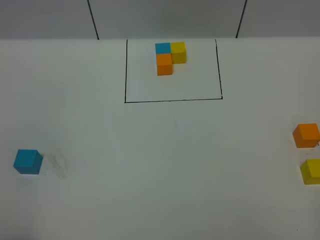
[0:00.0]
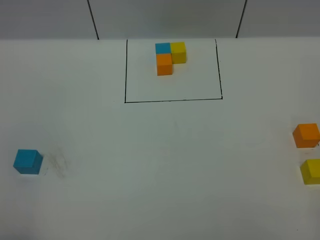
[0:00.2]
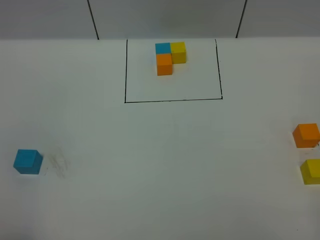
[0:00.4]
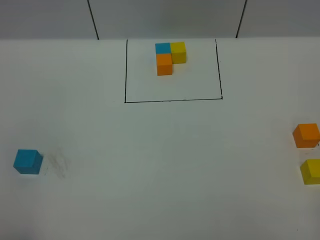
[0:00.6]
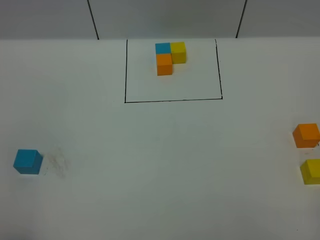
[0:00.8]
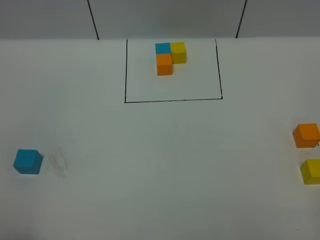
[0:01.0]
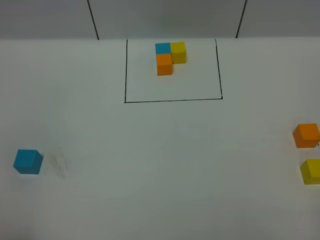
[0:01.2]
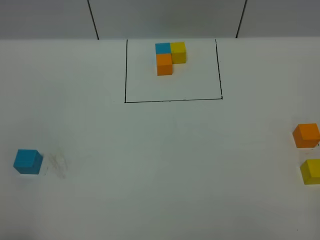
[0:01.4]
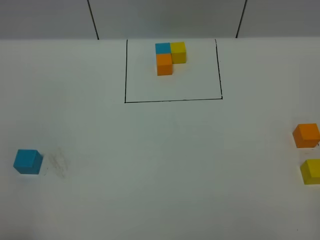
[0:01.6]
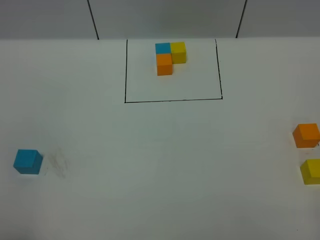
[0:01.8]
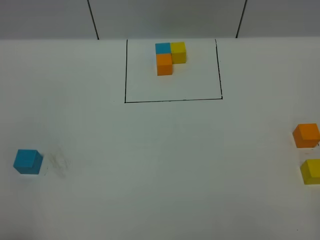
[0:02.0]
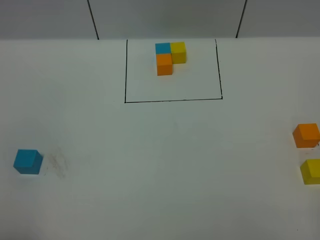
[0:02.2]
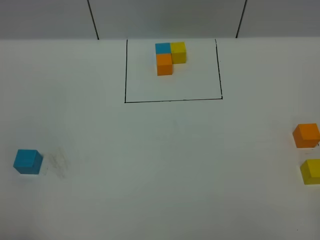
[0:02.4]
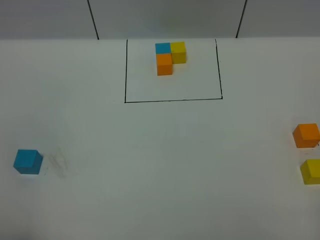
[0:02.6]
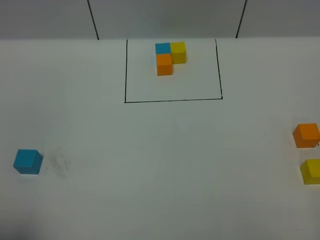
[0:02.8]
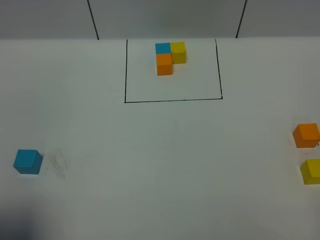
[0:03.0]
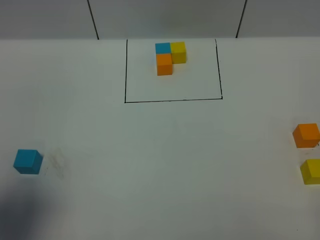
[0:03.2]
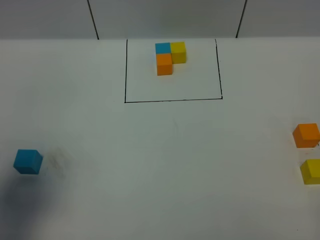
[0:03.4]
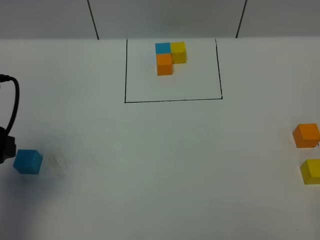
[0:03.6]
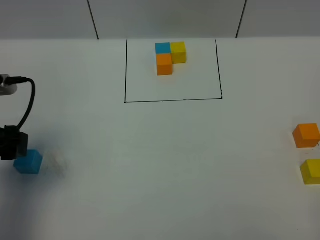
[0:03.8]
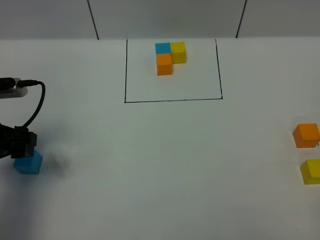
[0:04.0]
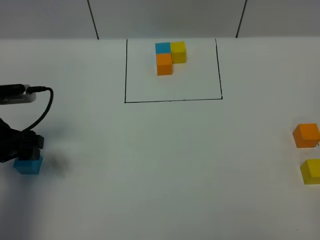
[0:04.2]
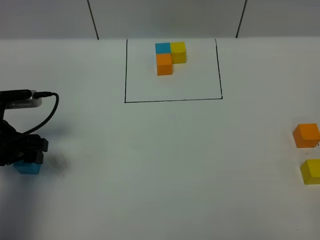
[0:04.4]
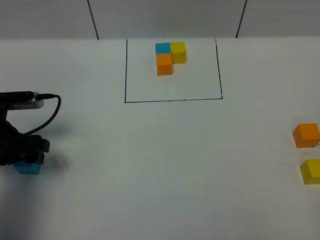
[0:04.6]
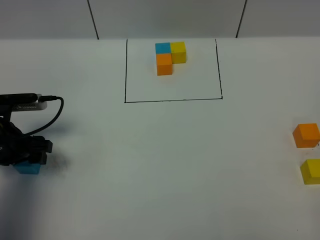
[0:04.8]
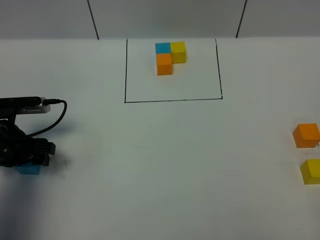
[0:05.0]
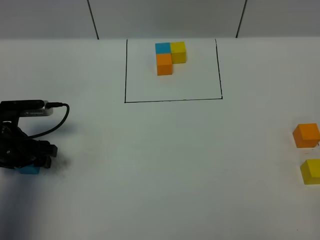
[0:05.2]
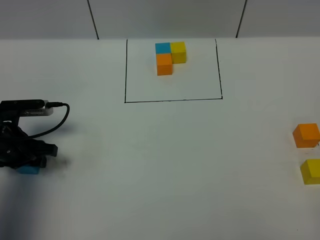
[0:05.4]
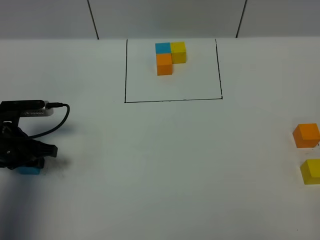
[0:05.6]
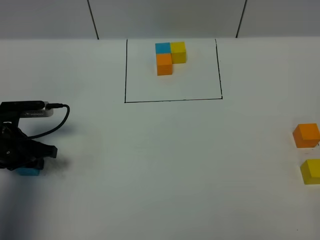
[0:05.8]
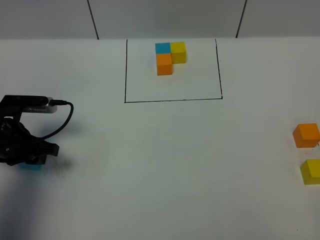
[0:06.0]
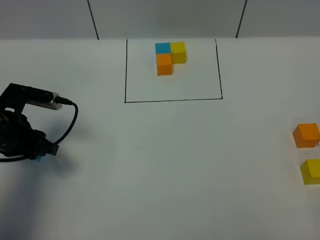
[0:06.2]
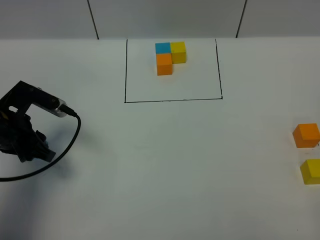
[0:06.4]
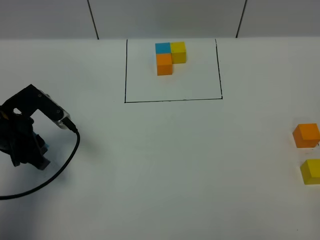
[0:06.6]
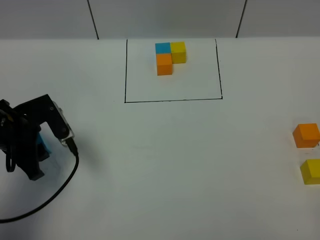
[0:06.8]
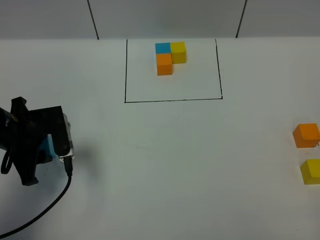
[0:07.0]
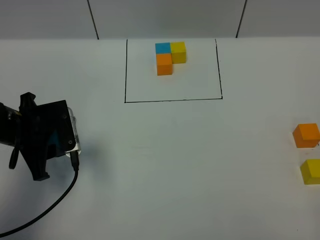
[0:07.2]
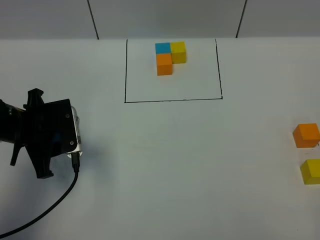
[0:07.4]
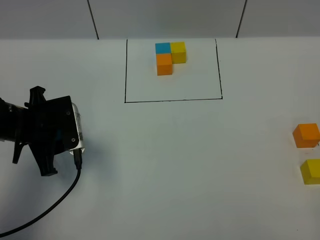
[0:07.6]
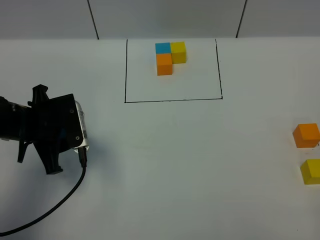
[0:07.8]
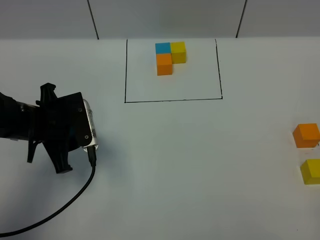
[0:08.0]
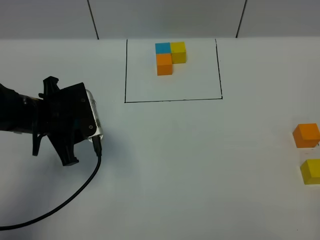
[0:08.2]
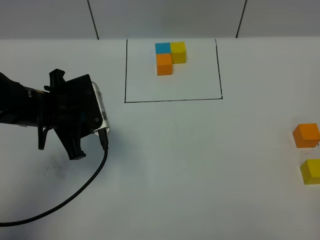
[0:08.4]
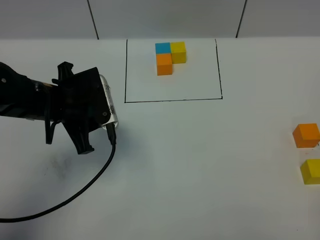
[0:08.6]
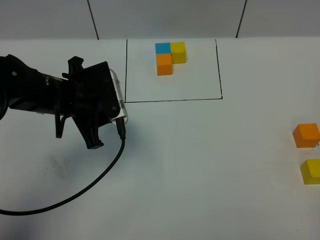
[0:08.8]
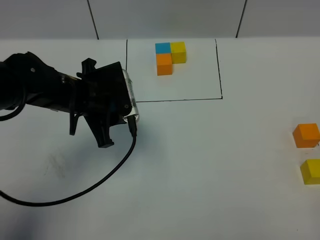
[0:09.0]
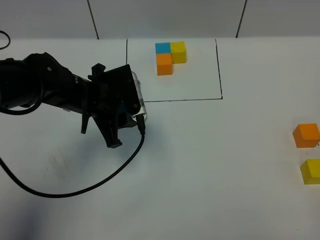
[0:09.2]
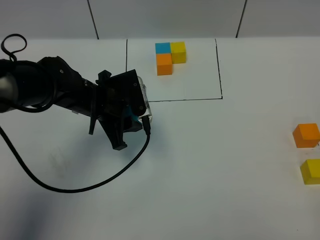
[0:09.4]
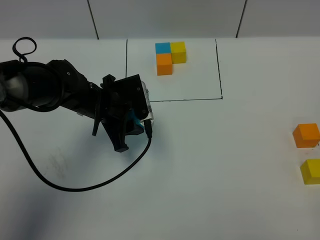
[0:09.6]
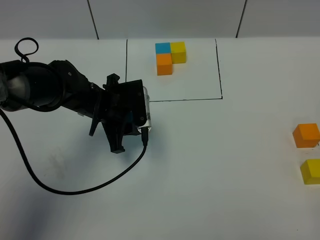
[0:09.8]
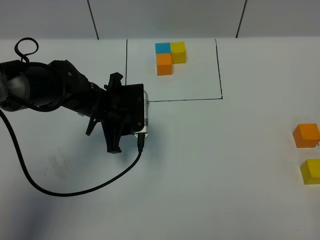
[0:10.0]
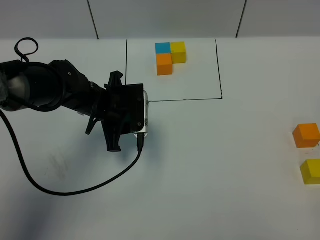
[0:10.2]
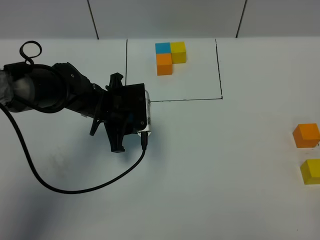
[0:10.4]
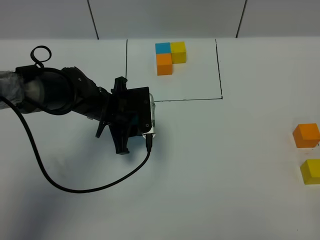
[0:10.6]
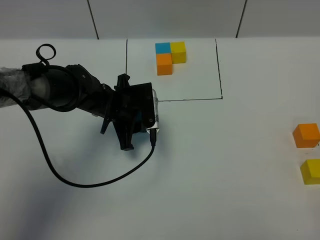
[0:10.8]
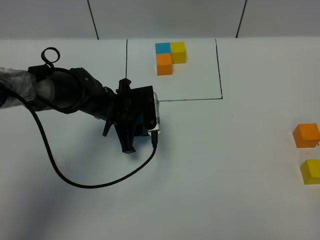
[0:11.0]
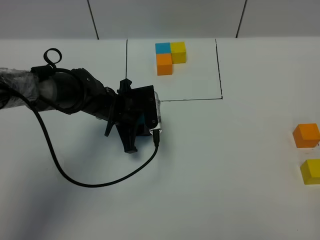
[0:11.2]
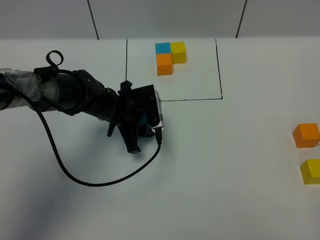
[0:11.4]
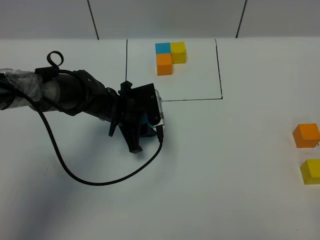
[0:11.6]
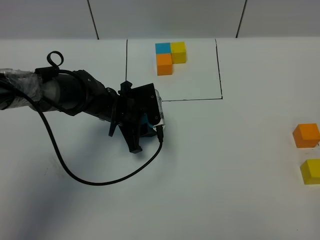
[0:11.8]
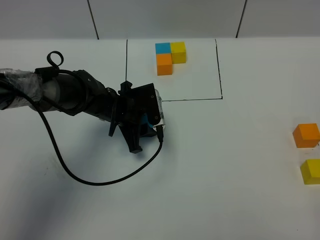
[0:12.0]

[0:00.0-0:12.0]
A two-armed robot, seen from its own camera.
Task of the whole recording: According to the building block template in front, assemble the scattered blocks together.
0:00.0 to 0:01.6: The two grippers keep their place.
0:01.6 to 0:03.0: The left gripper moves forward, some 5 cm, and opens up.
0:03.0 to 0:04.4: The left gripper goes roughly 25 cm forward and downward.
0:04.4 to 0:06.0: The left gripper closes up.
0:06.0 to 0:07.6: The left gripper changes place by approximately 5 cm.
0:07.6 to 0:09.0: The left gripper moves to the right, roughly 10 cm.
0:09.0 to 0:10.4: The left gripper shifts roughly 5 cm downward.
0:10.4 to 0:12.0: The grippers stay close to where they were, moving slightly.

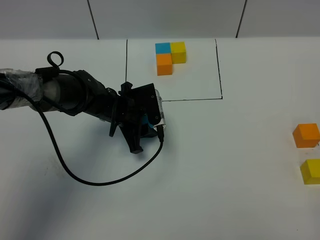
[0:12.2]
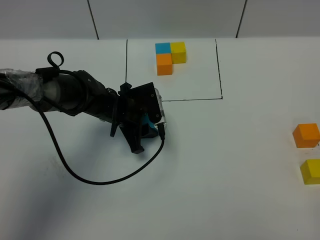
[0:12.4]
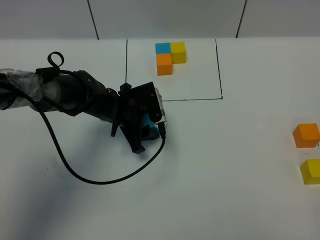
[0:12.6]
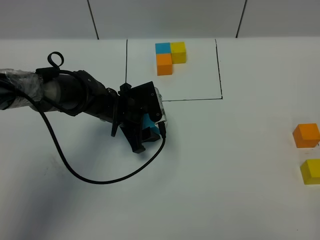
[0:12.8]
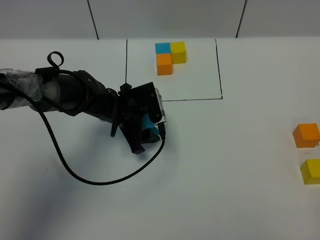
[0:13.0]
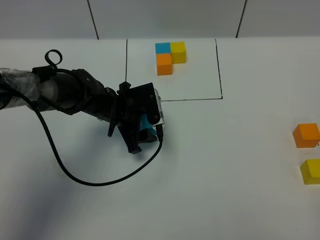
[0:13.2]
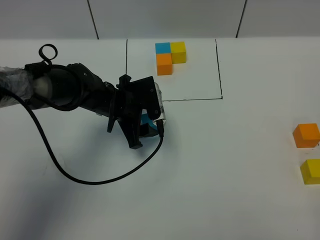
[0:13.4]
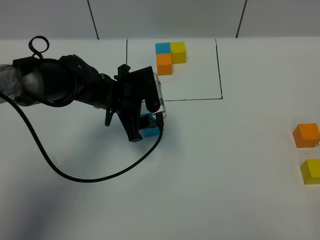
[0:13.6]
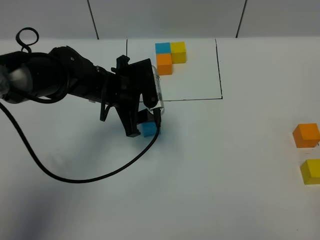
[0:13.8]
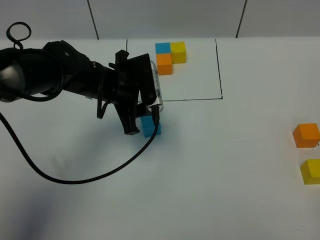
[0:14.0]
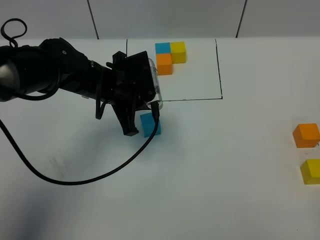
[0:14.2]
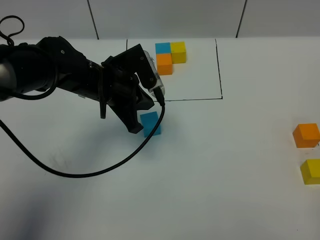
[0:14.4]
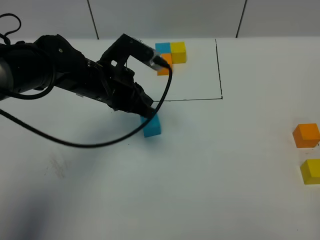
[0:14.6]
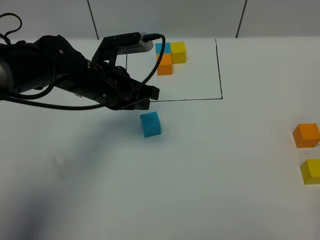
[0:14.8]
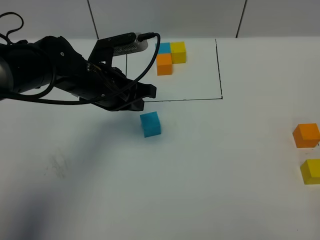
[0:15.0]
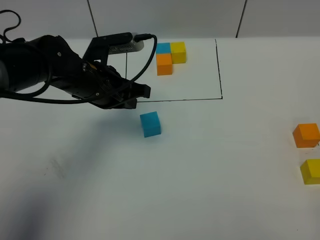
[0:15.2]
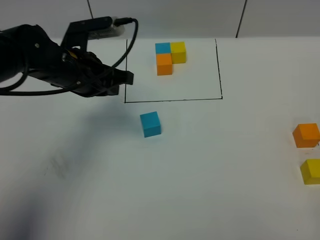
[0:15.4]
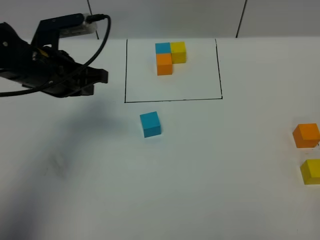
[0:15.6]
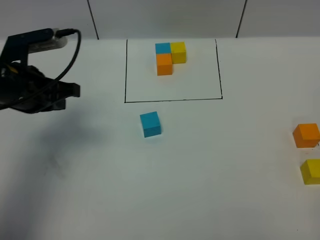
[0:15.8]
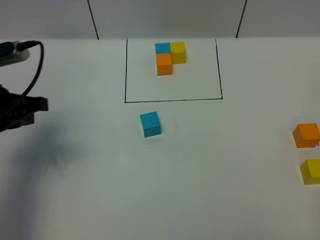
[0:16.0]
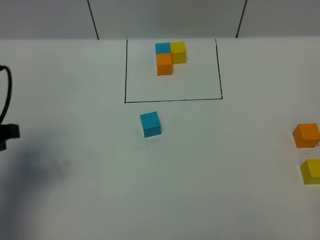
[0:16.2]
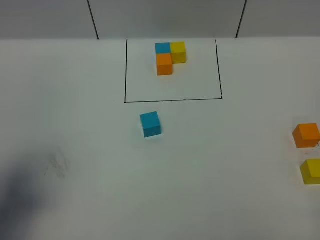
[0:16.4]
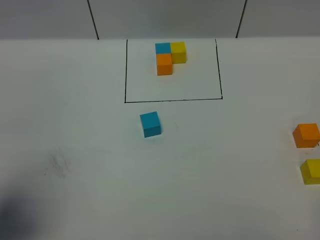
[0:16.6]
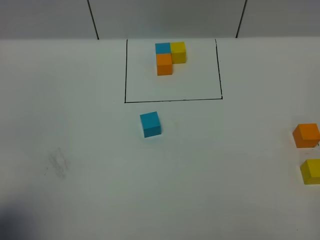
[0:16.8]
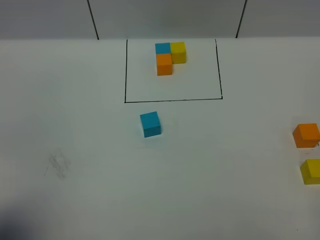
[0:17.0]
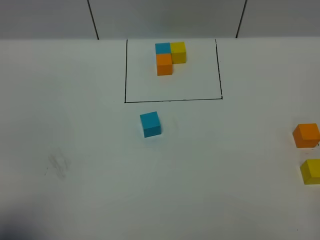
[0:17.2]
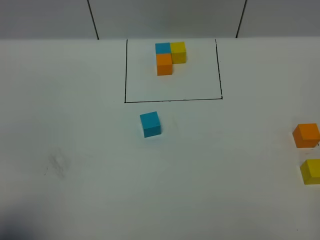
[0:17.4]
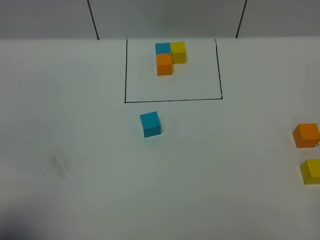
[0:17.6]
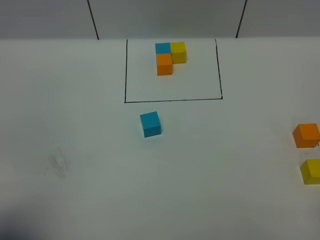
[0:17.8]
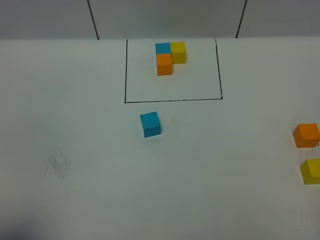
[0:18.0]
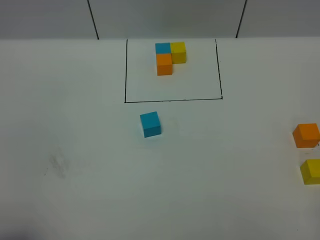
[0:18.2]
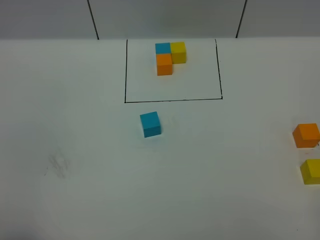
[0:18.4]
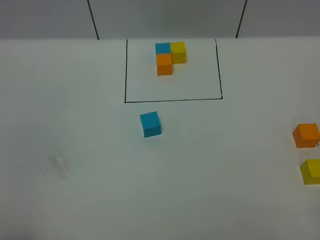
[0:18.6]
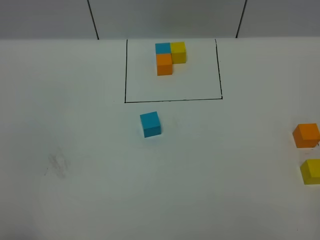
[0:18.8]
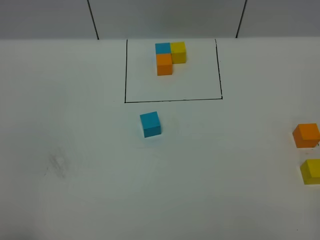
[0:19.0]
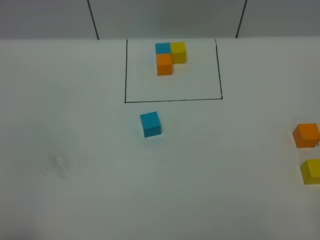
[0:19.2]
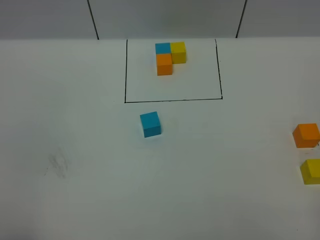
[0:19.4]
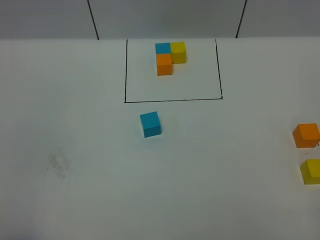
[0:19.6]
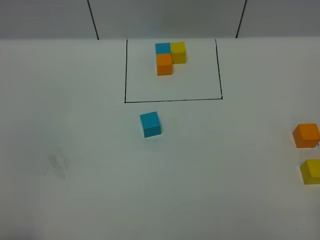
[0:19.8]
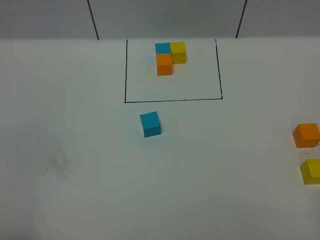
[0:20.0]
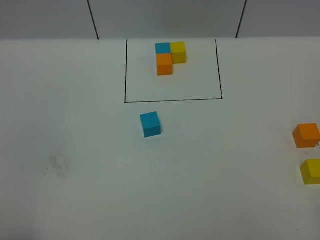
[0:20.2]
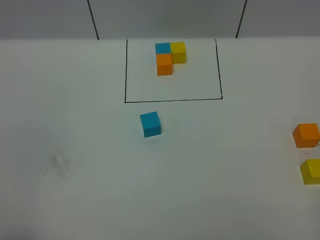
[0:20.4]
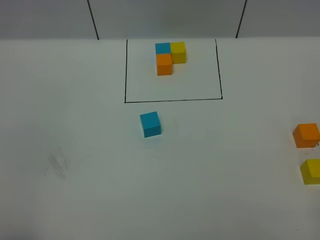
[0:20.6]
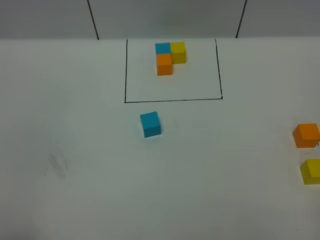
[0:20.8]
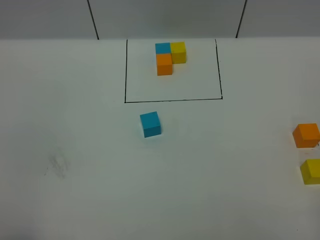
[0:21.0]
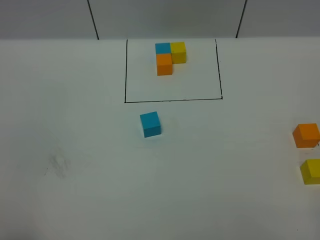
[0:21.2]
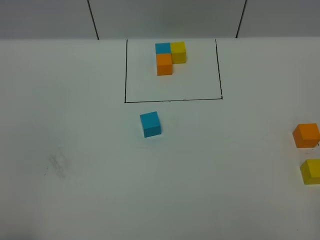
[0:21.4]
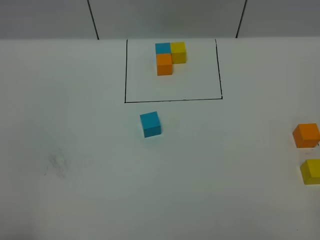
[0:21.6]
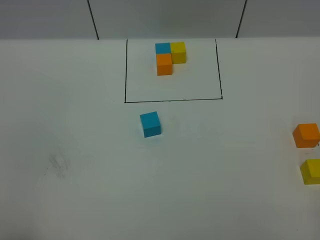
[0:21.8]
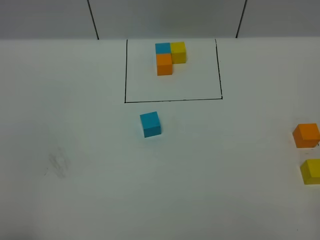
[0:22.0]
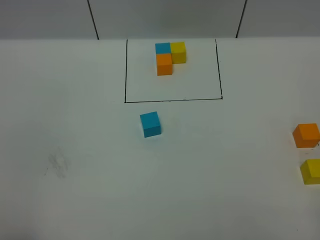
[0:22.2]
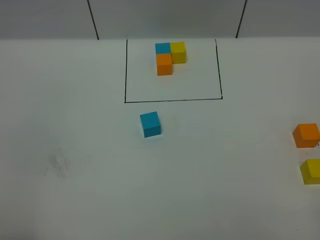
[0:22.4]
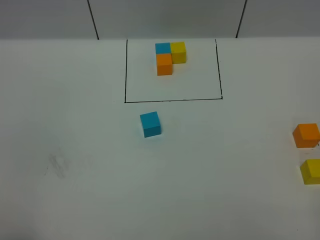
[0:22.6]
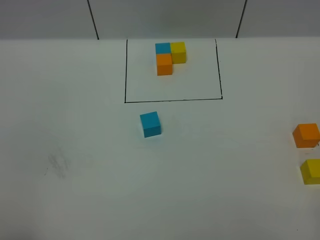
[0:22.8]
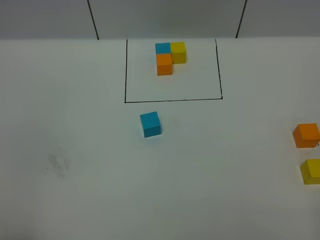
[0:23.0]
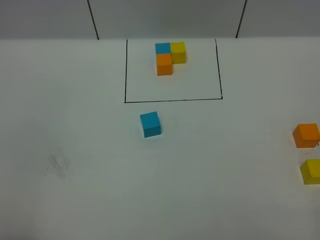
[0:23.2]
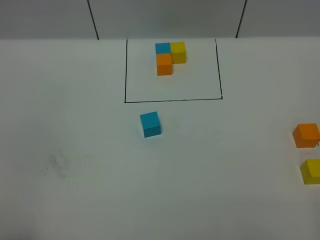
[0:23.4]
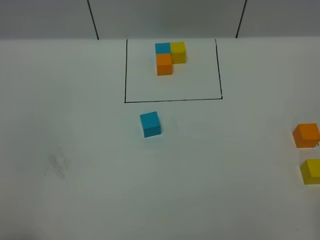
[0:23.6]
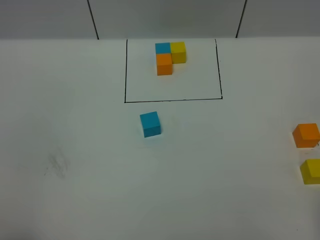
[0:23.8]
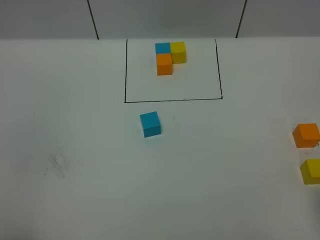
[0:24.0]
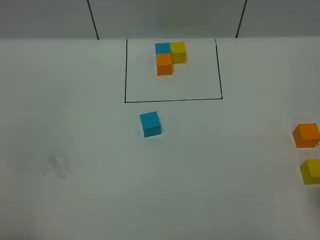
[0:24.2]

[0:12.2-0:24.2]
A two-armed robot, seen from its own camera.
Task of the whole recording: According to the building block template in front, assemble the scattered blocks together.
0:12.2 to 0:13.8: The left gripper is displaced upward by some 10 cm.
0:13.8 to 0:15.2: The left gripper closes its fingers.
0:15.2 to 0:16.6: The left gripper travels backward and to the left by some 30 cm.
0:16.6 to 0:18.2: The left gripper goes roughly 10 cm backward.
0:19.8 to 0:22.6: Both grippers stay put.
